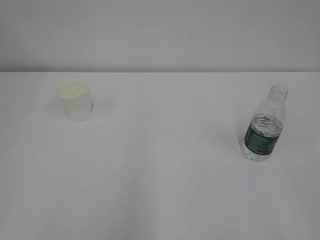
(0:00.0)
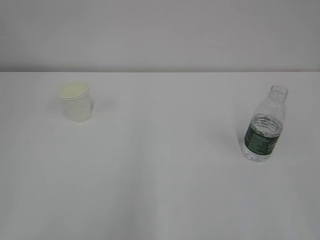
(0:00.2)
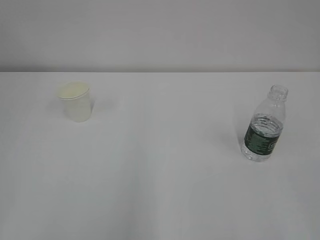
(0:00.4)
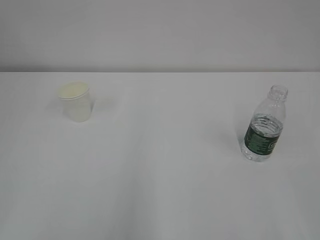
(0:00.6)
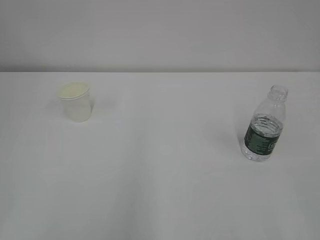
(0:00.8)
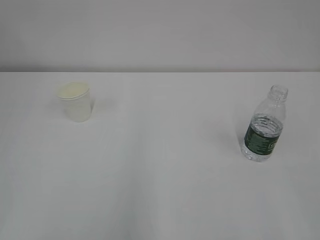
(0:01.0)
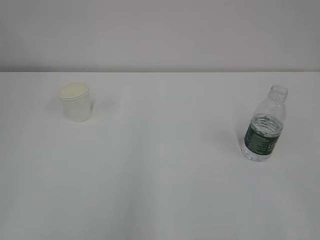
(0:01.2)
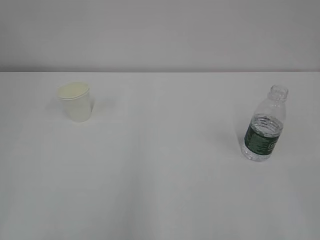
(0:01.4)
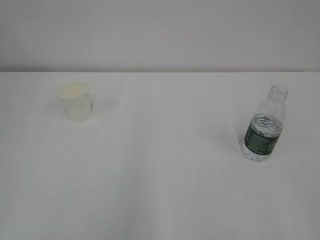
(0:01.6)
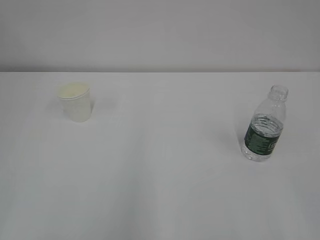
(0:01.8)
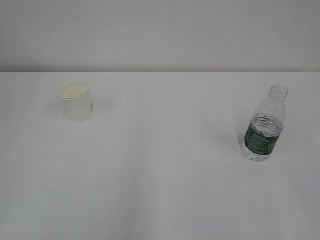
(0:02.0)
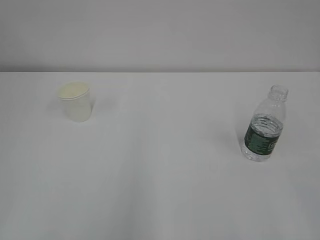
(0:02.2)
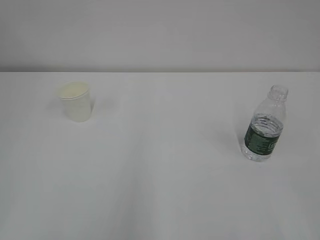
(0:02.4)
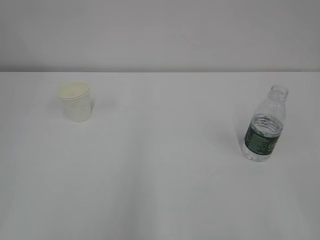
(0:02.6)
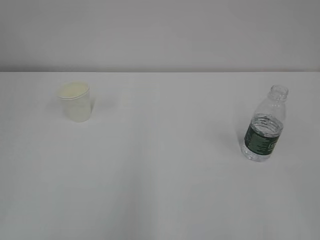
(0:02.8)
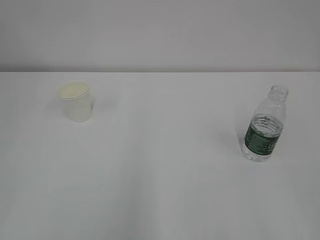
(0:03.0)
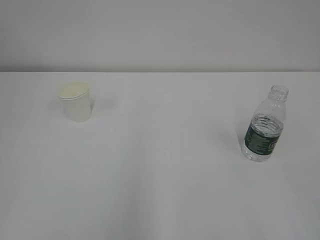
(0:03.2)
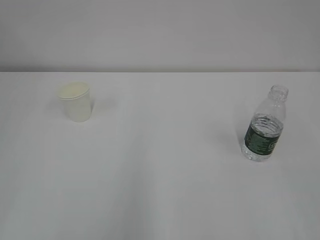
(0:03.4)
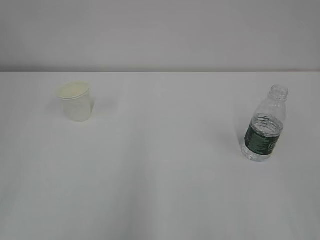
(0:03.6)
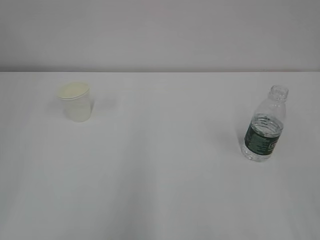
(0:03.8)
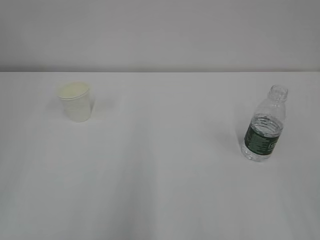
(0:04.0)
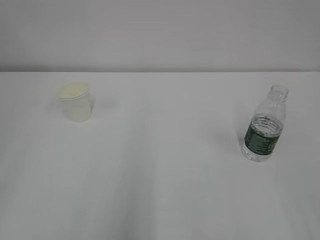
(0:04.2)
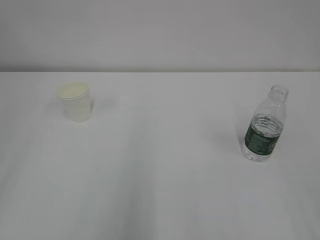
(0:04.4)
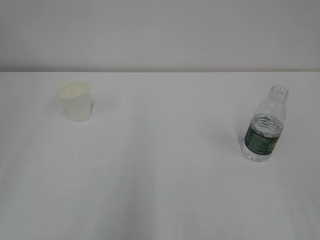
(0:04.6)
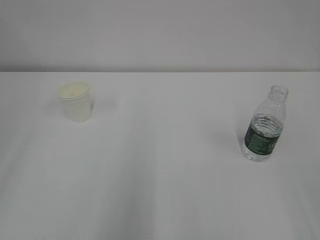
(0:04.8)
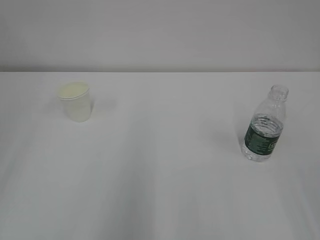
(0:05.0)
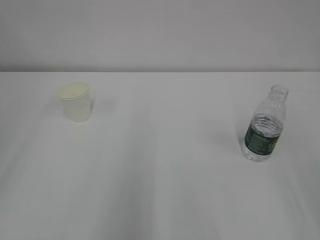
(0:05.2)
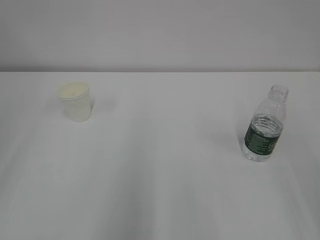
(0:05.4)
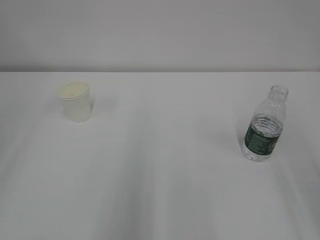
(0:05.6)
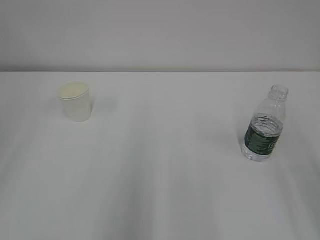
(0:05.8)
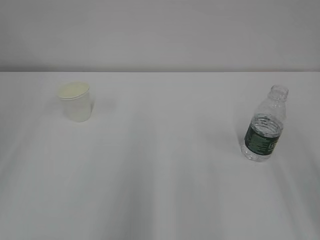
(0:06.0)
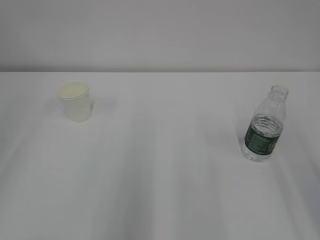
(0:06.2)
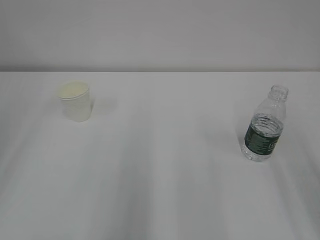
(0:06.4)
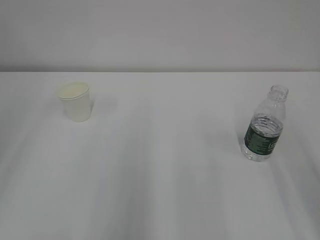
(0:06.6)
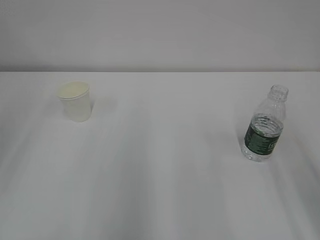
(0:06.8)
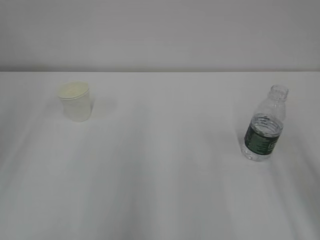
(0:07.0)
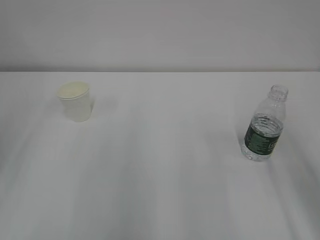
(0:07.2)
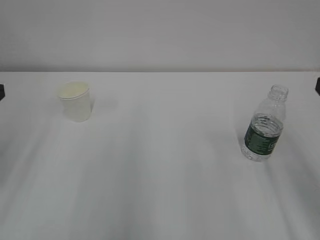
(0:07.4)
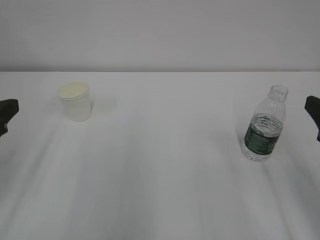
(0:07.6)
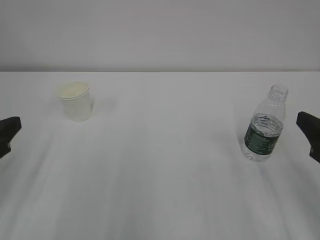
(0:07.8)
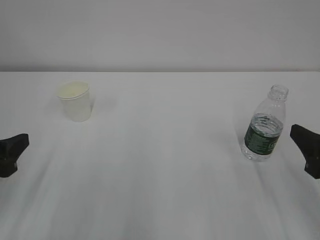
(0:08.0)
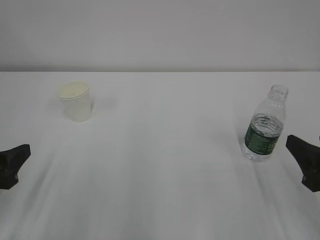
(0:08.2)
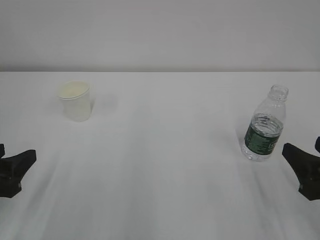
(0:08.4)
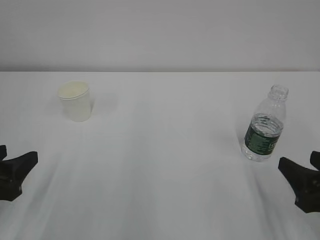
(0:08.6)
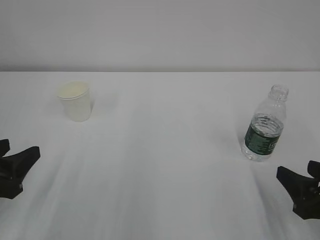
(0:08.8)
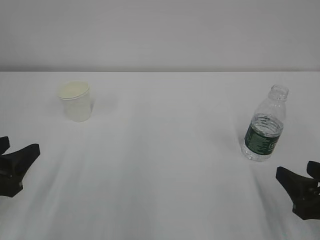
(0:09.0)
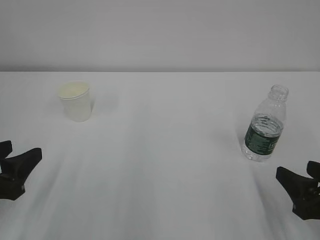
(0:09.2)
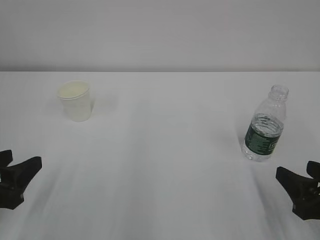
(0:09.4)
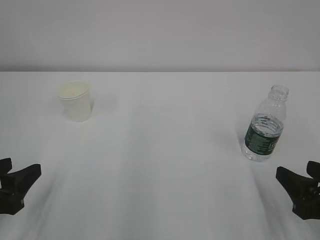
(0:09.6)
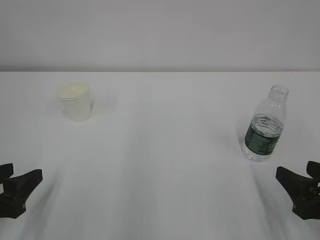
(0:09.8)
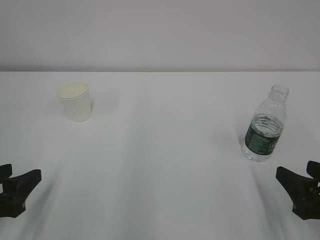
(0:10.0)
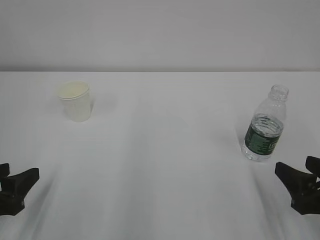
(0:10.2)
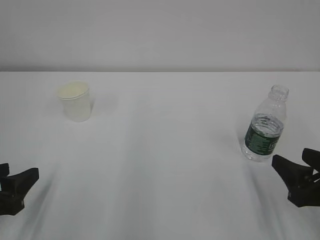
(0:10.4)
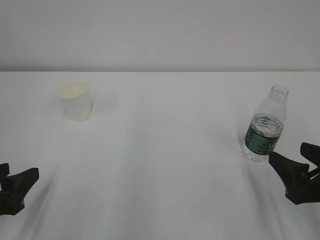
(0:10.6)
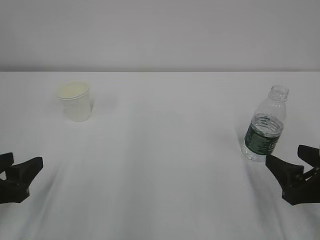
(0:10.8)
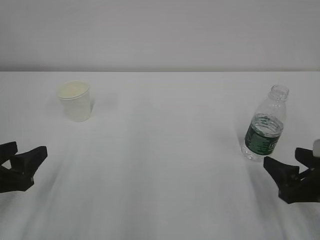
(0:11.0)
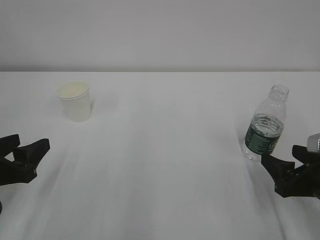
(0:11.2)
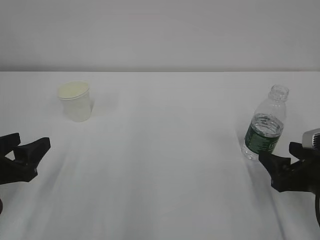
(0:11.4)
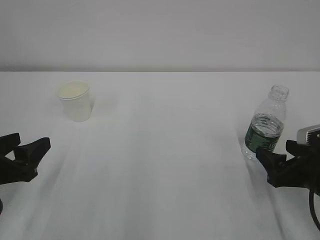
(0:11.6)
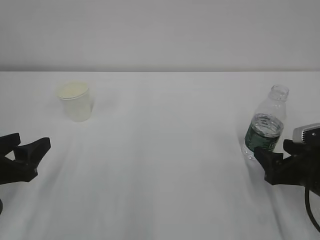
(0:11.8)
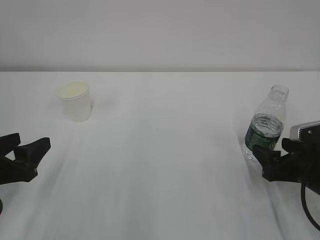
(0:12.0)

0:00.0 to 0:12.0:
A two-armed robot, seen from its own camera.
0:01.6 to 0:03.0: Both grippers stay about where they are.
0:07.6 to 0:09.0: Both grippers travel together downward, roughly 10 cm.
0:09.0 to 0:10.4: The grippers move only a little.
0:10.4 to 0:12.0: The right gripper goes approximately 5 cm forward, and opens its fingers.

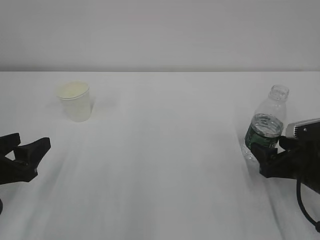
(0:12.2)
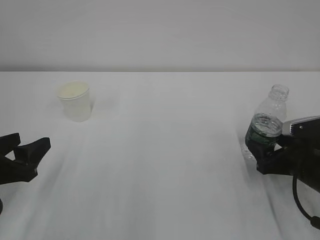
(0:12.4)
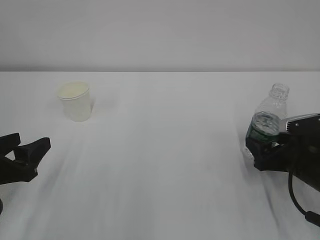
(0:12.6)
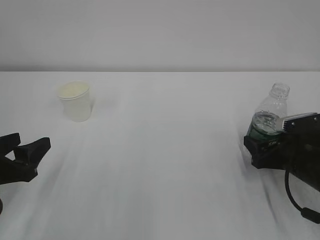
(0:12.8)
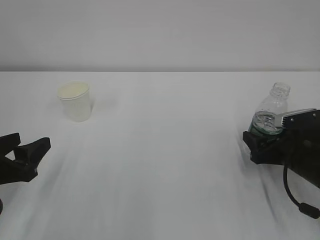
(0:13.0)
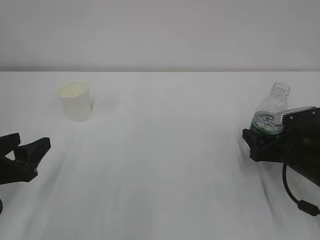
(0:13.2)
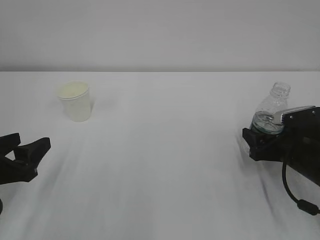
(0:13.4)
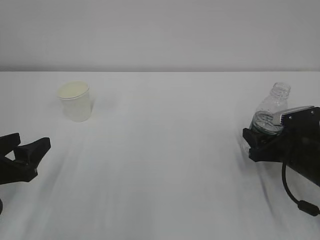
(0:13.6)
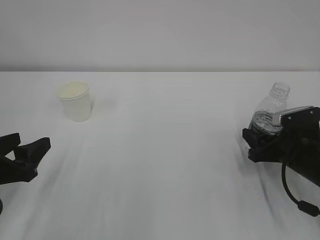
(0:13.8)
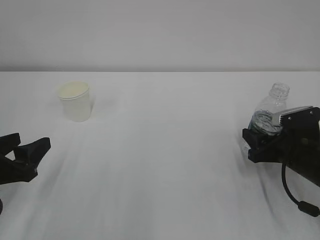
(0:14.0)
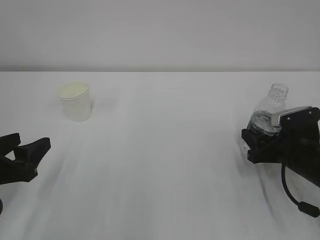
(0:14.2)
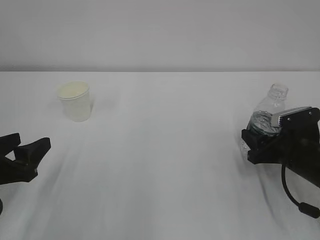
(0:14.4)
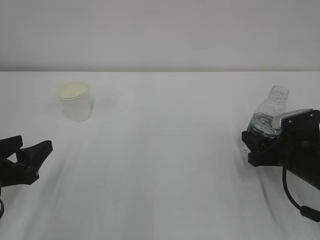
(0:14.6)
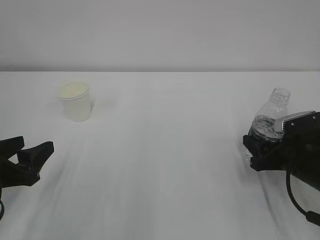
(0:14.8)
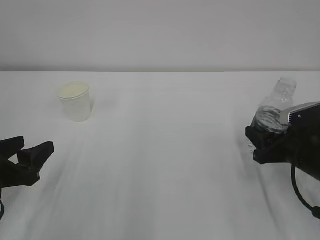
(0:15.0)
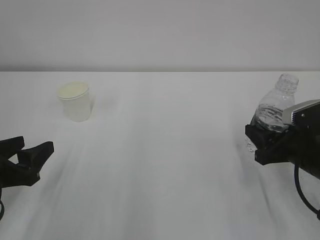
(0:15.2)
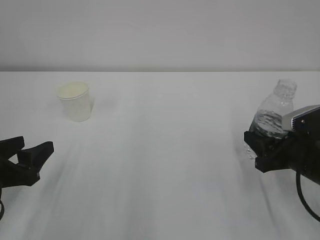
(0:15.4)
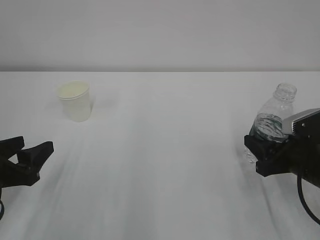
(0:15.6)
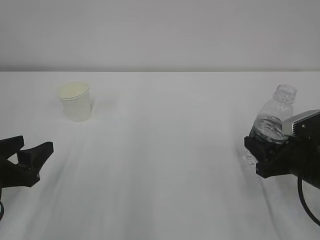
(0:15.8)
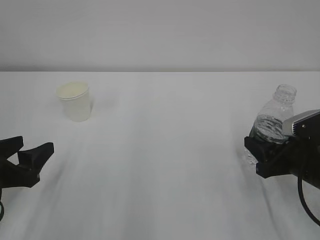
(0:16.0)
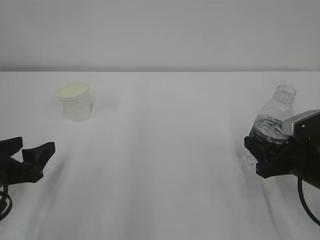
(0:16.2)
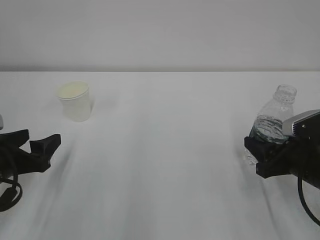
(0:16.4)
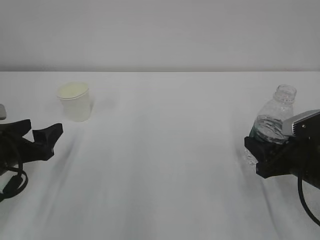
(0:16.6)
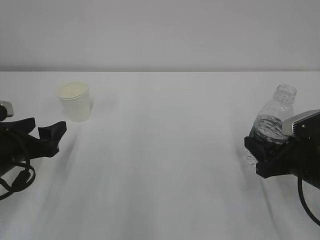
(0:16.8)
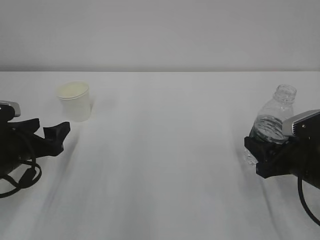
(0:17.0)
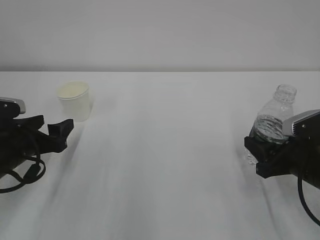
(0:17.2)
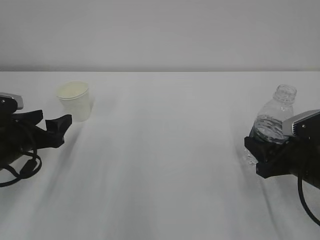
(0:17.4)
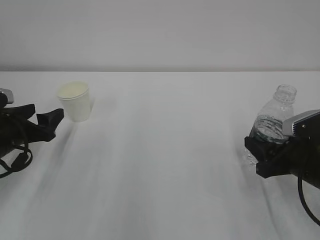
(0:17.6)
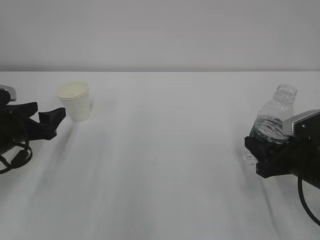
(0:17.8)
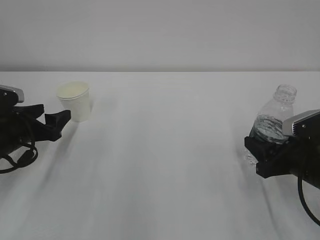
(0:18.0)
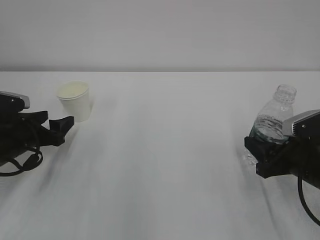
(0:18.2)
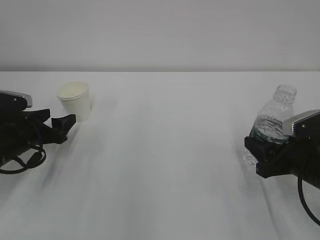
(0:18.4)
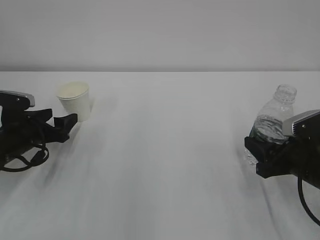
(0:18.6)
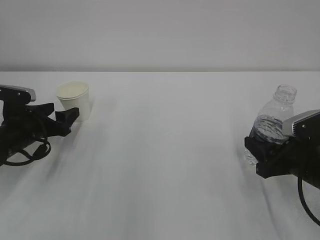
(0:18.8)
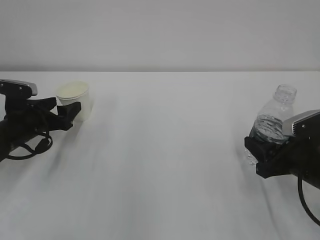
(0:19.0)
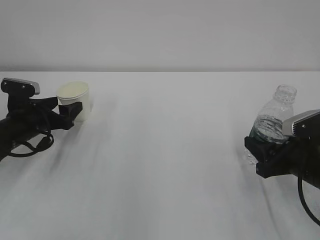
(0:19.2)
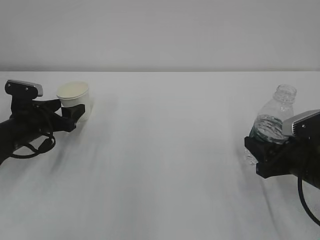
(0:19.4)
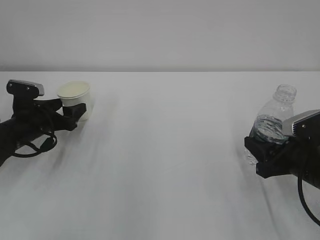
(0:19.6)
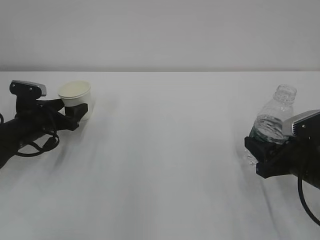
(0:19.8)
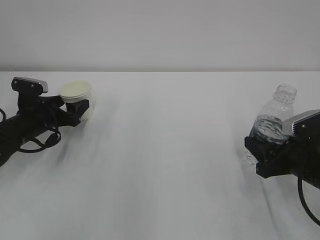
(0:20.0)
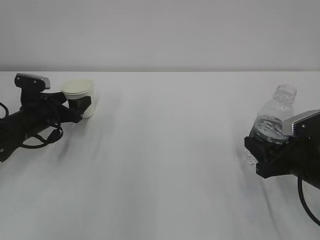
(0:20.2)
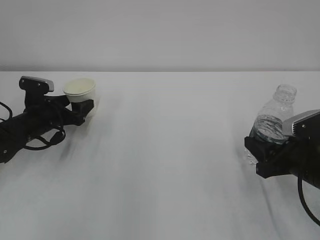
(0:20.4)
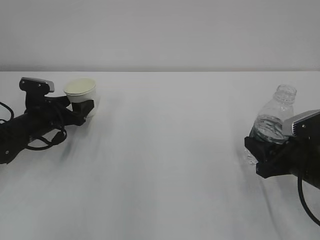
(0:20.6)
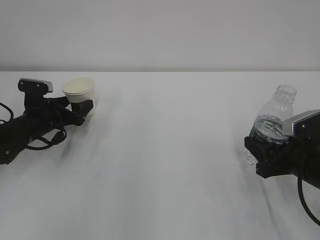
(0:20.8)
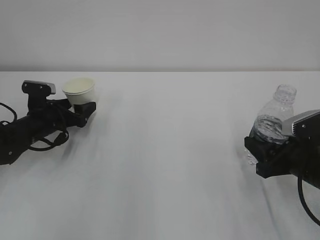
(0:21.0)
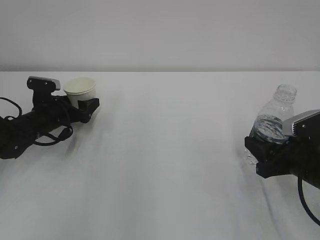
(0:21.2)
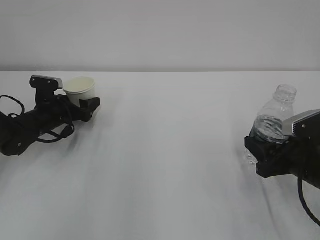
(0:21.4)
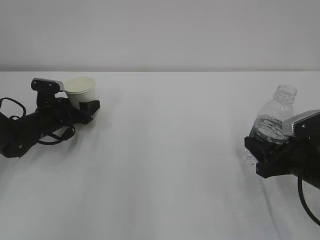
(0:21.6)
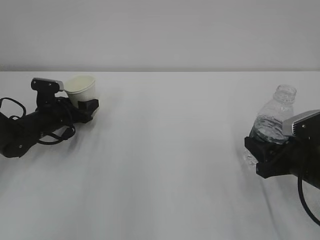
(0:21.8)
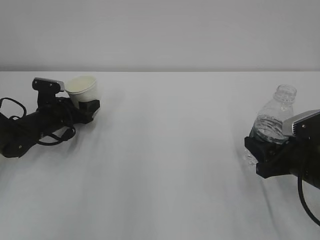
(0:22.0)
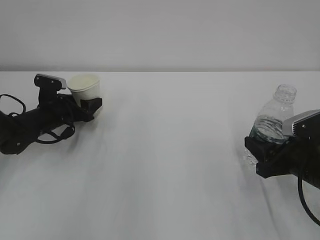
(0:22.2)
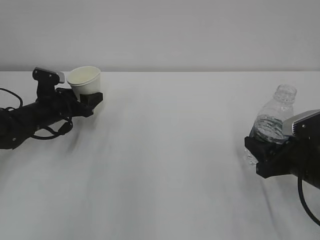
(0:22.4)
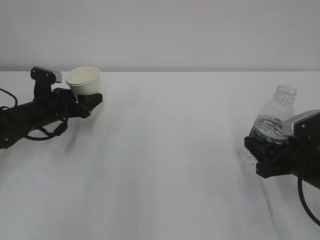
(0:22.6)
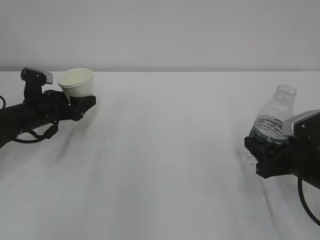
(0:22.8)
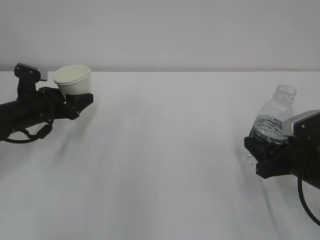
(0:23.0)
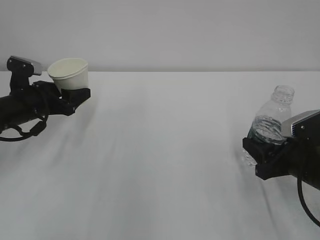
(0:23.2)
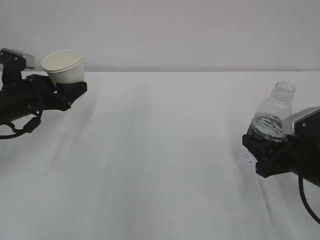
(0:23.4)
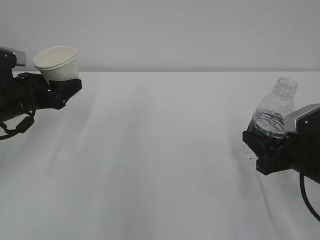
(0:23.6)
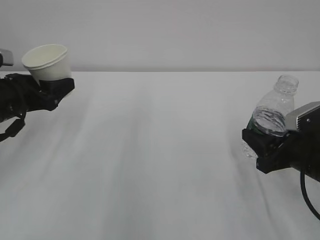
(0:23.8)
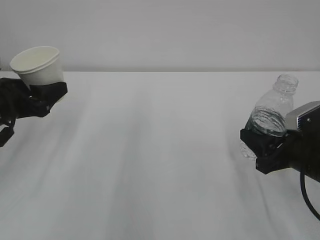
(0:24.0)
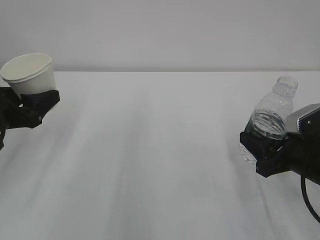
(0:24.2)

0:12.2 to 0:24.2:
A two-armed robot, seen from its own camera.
0:12.2 to 0:13.8: The right gripper closes its fingers.
0:13.8 to 0:15.2: The grippers stay close to where they were, moving slightly.
0:15.2 to 0:16.6: The left gripper opens its fingers.
0:16.6 to 0:18.2: The left gripper is displaced forward by approximately 10 cm.
0:18.2 to 0:19.8: The left gripper travels forward by approximately 5 cm.
0:19.8 to 0:21.2: The grippers stay close to where they were, moving slightly.
0:21.2 to 0:22.6: The left gripper closes up.
0:22.6 to 0:24.2: The left gripper goes about 15 cm backward and upward.
